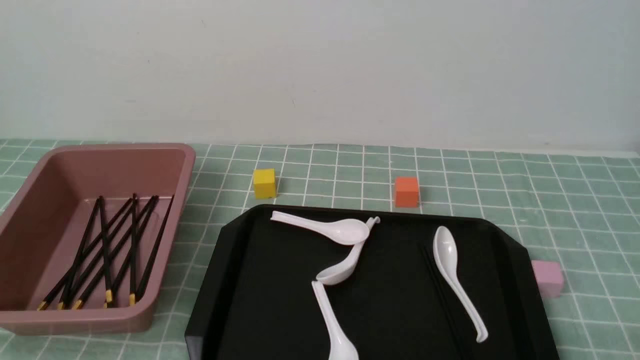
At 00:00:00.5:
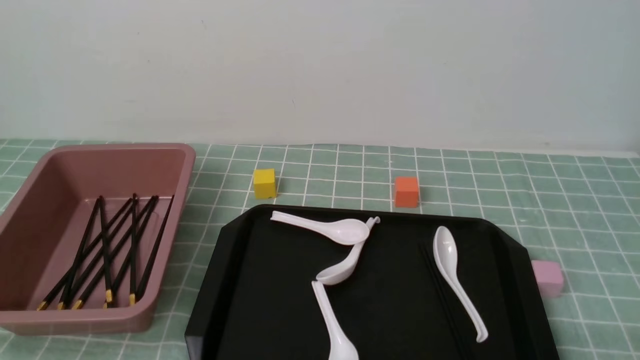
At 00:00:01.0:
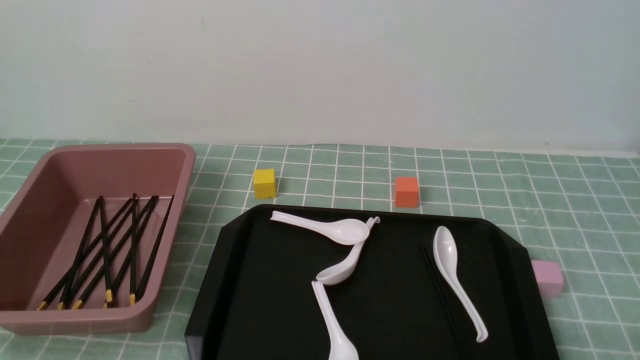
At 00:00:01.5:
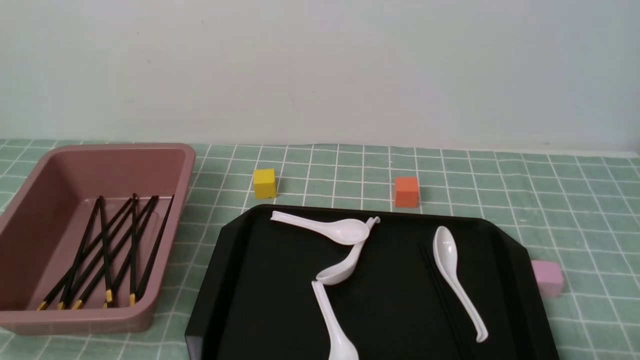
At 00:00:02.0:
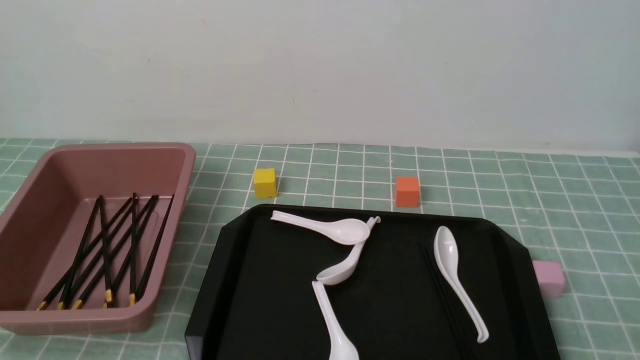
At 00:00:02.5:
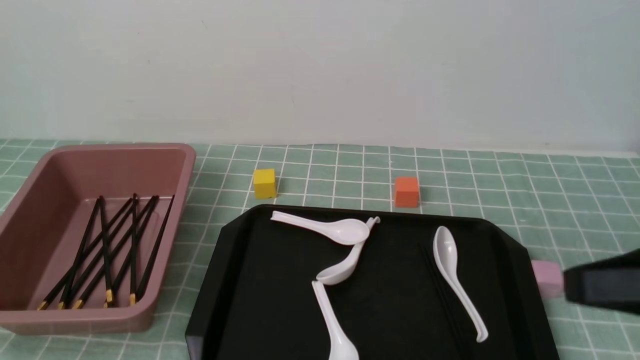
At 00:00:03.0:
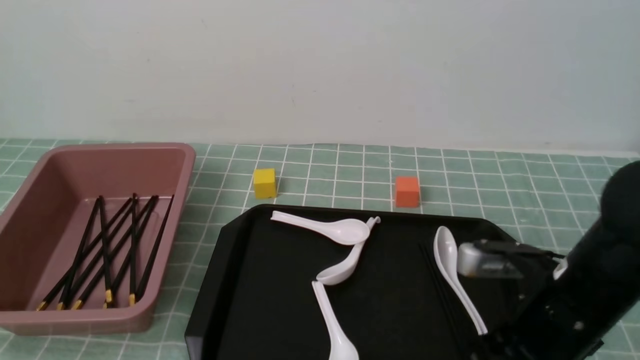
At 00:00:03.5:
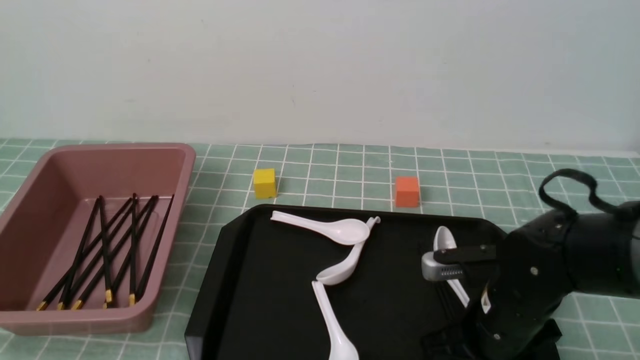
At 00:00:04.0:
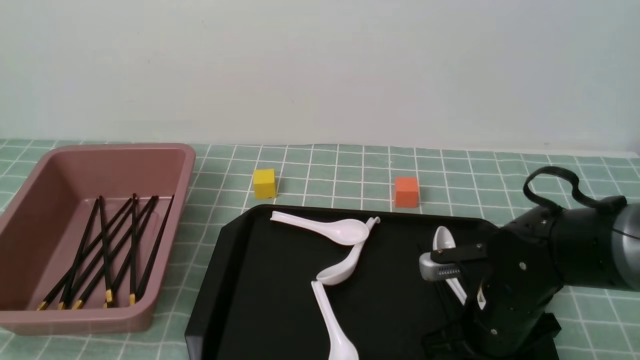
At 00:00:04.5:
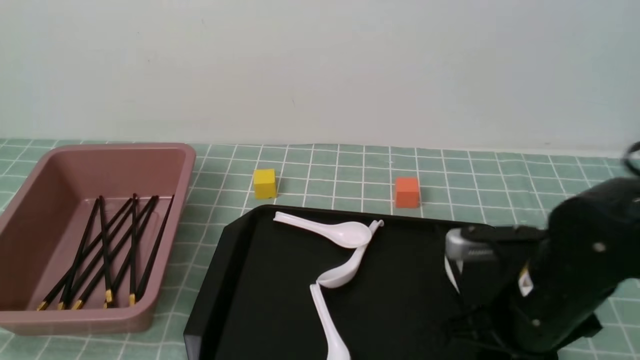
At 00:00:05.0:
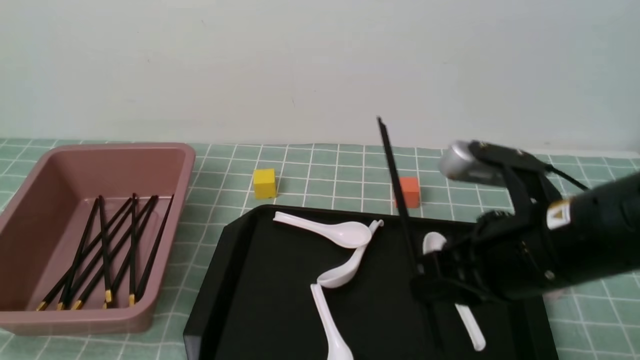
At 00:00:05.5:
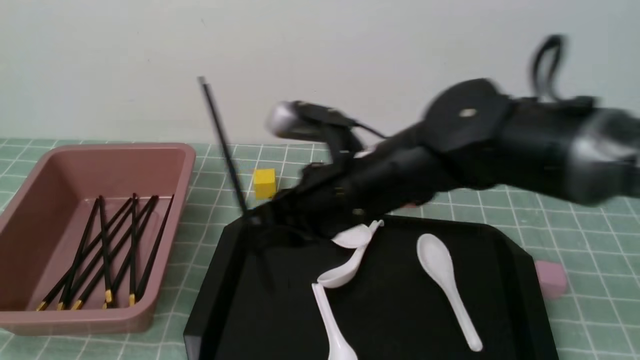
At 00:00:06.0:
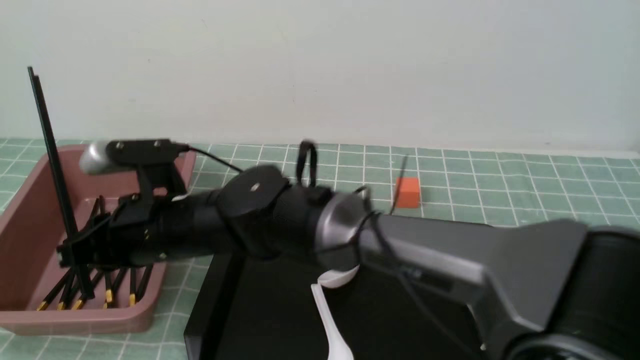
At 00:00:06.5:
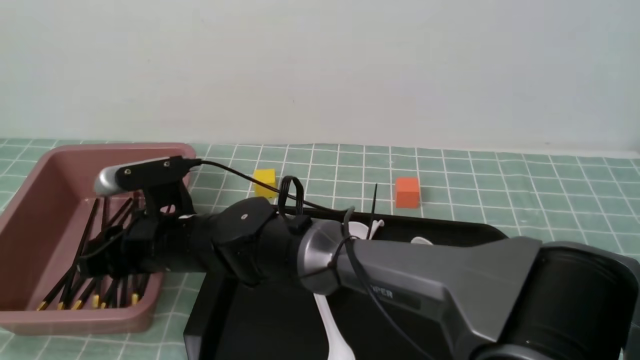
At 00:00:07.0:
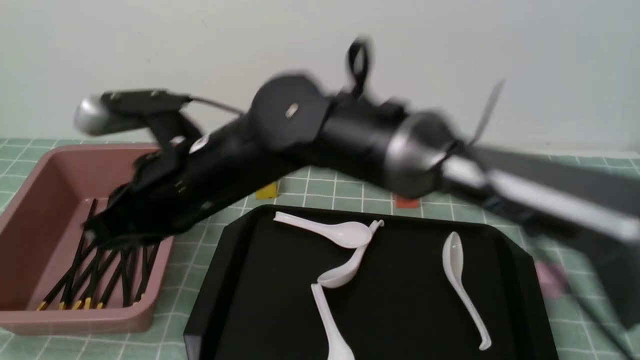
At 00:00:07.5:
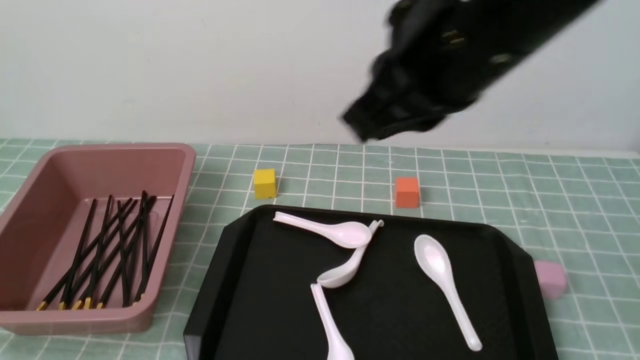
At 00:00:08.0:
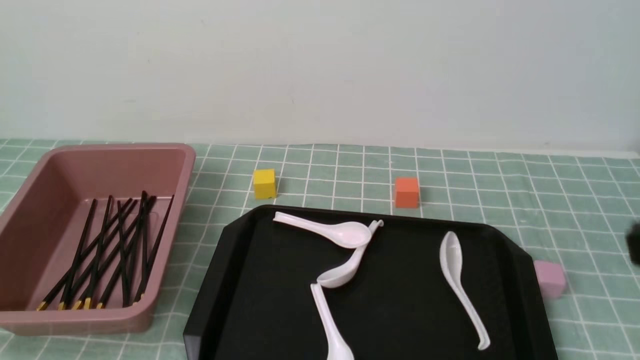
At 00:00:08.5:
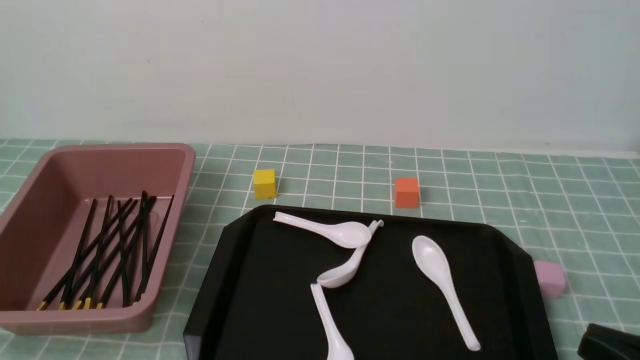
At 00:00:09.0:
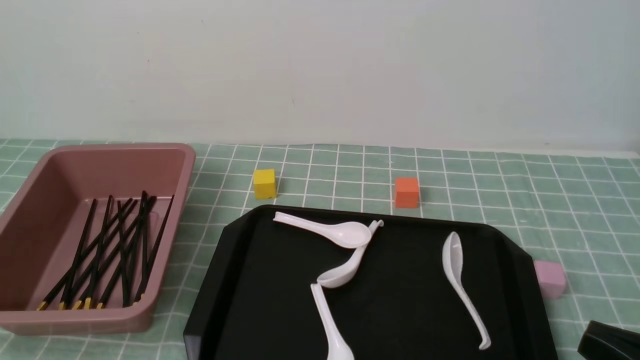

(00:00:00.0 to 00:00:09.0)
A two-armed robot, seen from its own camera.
Step, 00:00:00.0 - 00:00:04.5: use the right arm to grab a pair of chopsticks.
Step, 00:00:05.0 - 00:00:06.5: use the right arm to put the chopsticks into the lunch box.
00:00:02.0 - 00:00:04.5: The right gripper goes up and down, some 20 cm each way, reversing 2 times, and closes, then reopens.
00:00:04.5 - 00:00:07.0: The right gripper moves to the left, some 25 cm, and opens, then closes again.
00:00:07.0 - 00:00:09.0: The right gripper shifts approximately 40 cm to the right and backward.

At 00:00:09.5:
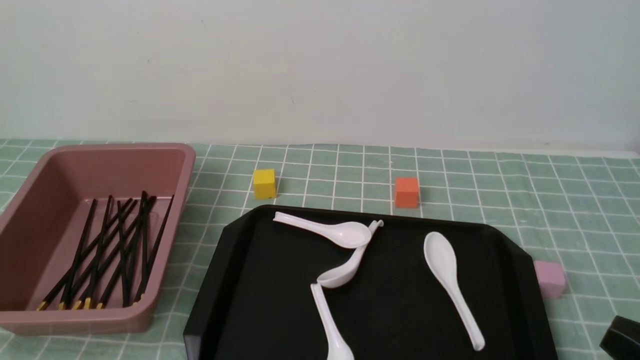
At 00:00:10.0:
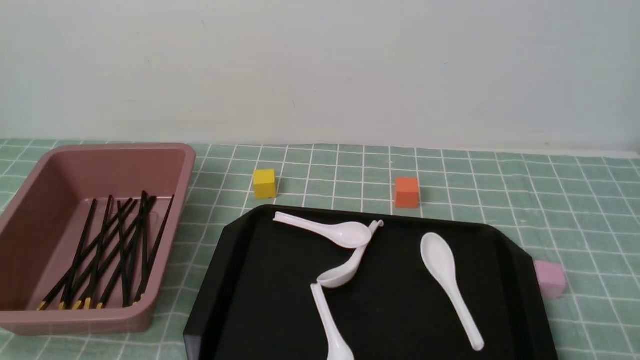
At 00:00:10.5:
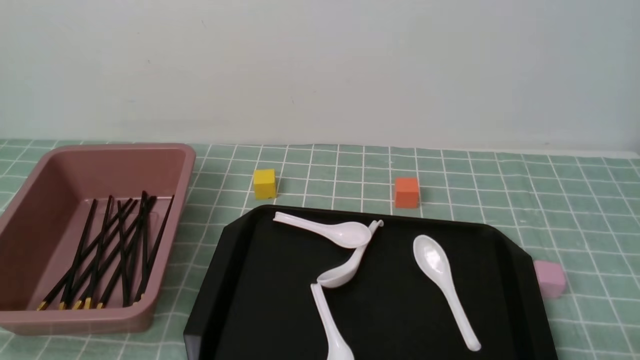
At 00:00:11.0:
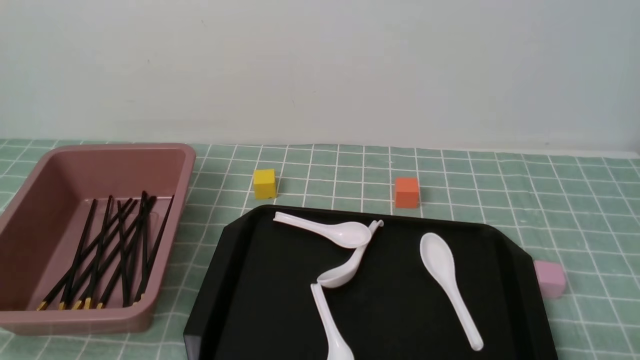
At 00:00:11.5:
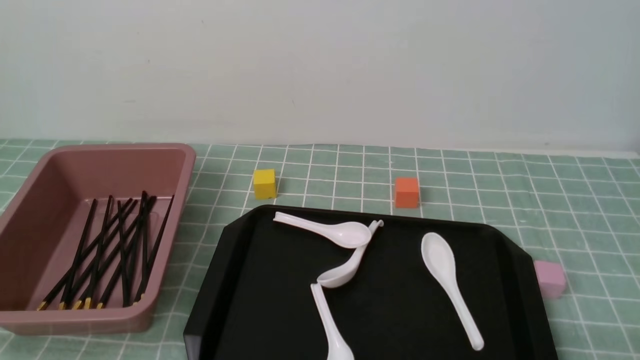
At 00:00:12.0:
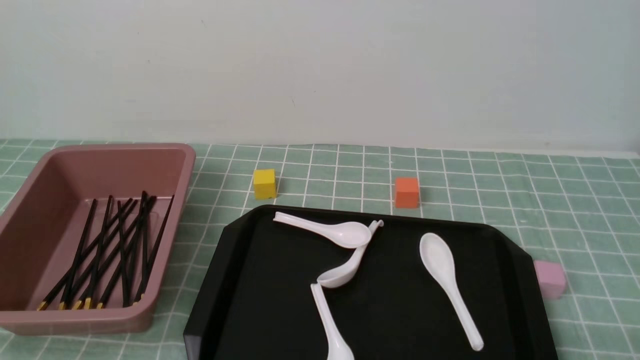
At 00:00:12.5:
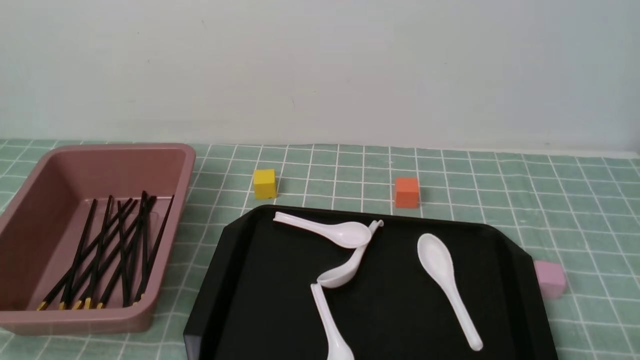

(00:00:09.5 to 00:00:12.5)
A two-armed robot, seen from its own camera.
00:00:09.5 - 00:00:11.0: The right gripper goes some 10 cm downward.
00:00:11.0 - 00:00:12.5: Neither gripper changes place.
